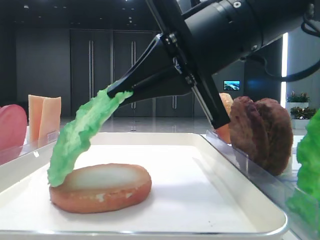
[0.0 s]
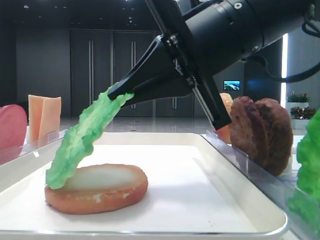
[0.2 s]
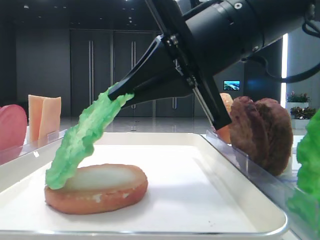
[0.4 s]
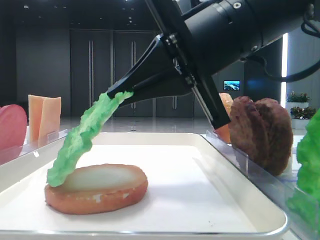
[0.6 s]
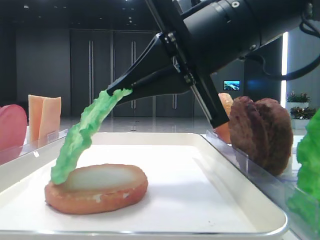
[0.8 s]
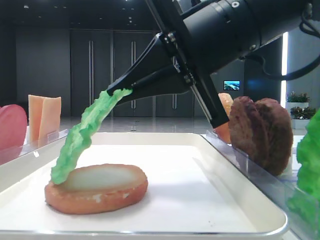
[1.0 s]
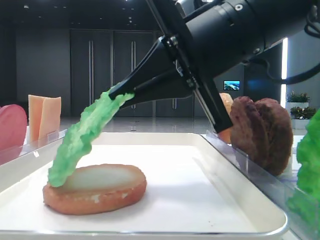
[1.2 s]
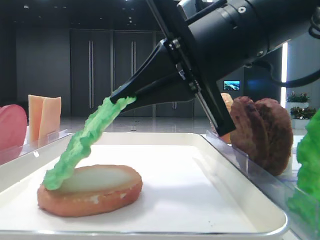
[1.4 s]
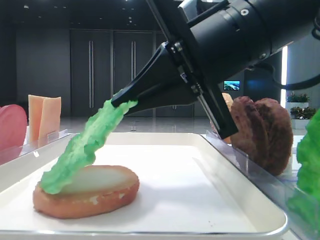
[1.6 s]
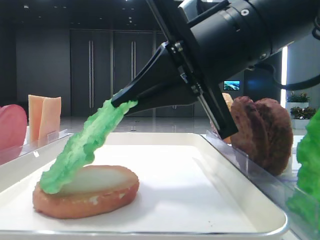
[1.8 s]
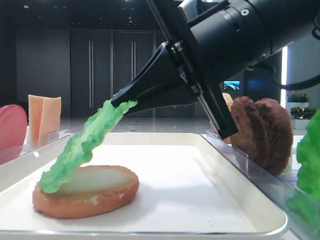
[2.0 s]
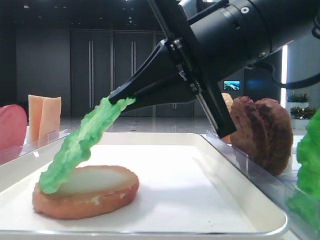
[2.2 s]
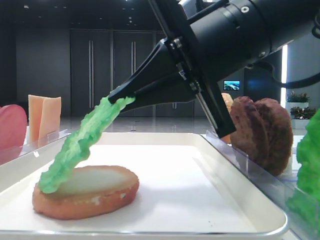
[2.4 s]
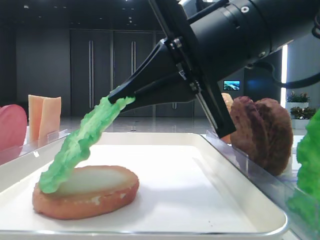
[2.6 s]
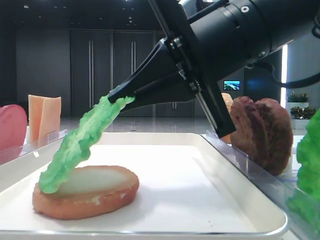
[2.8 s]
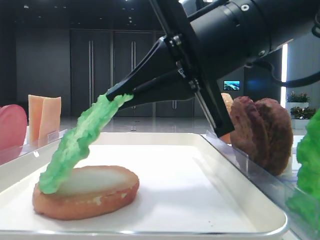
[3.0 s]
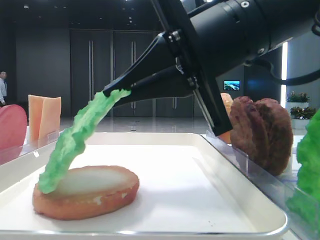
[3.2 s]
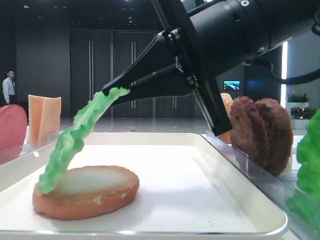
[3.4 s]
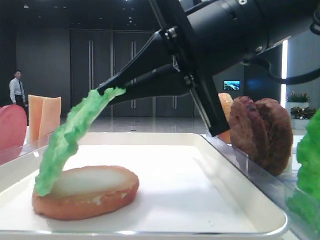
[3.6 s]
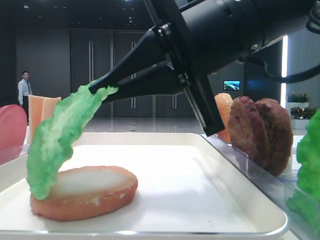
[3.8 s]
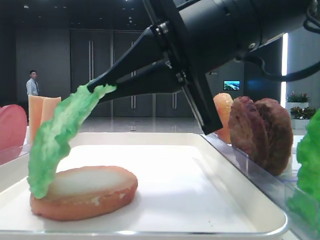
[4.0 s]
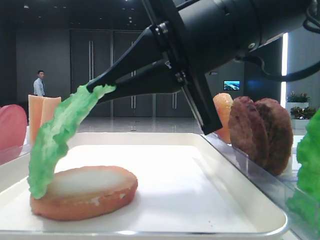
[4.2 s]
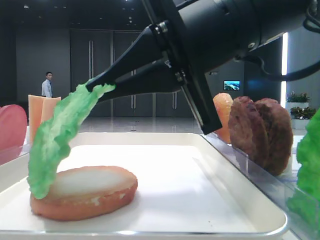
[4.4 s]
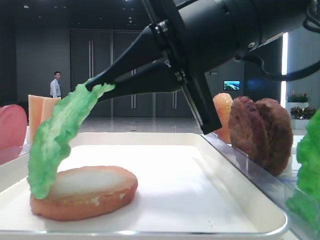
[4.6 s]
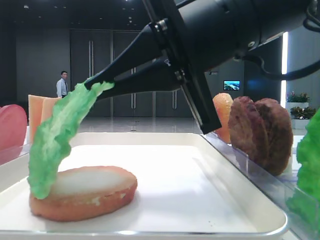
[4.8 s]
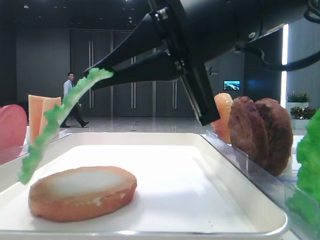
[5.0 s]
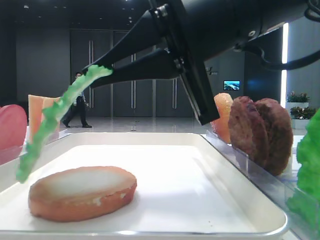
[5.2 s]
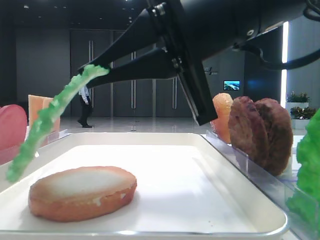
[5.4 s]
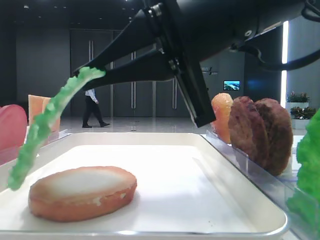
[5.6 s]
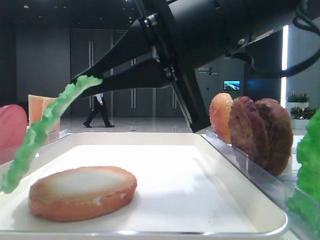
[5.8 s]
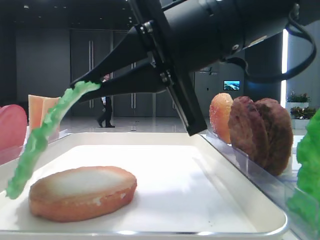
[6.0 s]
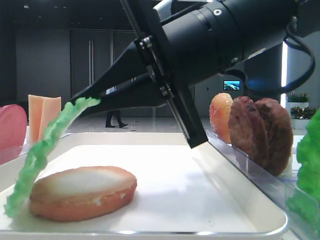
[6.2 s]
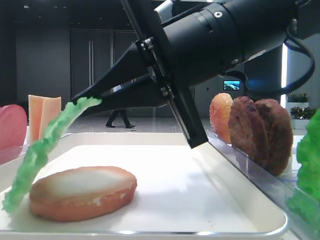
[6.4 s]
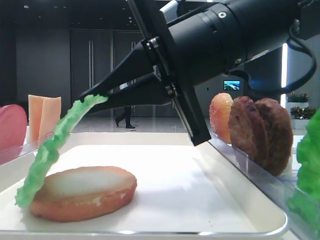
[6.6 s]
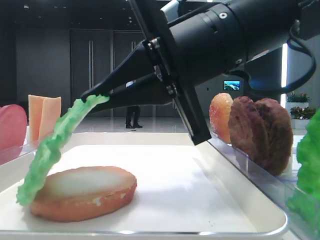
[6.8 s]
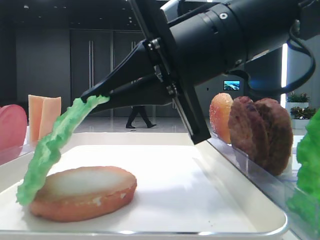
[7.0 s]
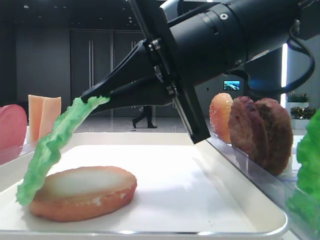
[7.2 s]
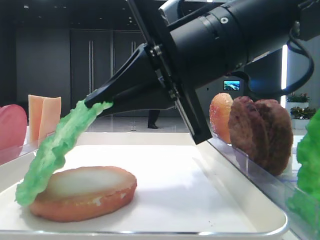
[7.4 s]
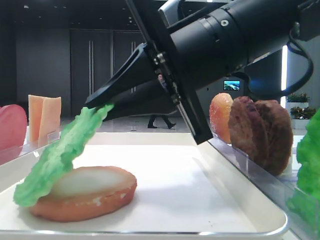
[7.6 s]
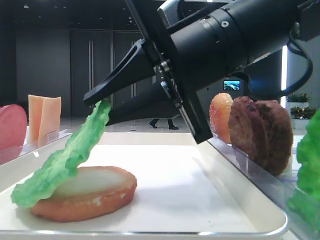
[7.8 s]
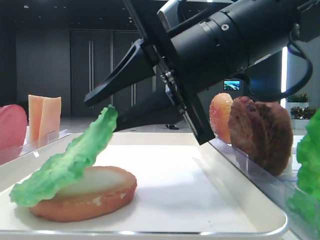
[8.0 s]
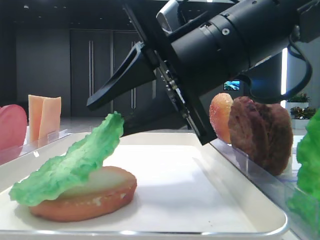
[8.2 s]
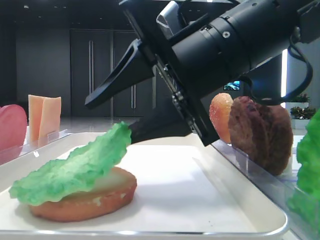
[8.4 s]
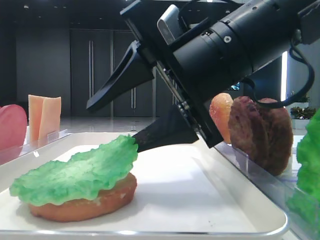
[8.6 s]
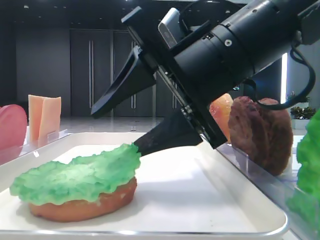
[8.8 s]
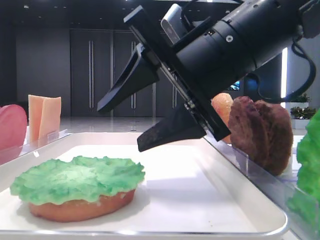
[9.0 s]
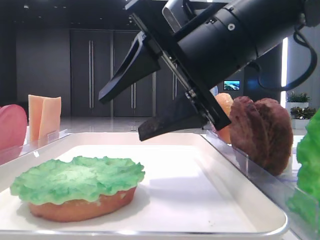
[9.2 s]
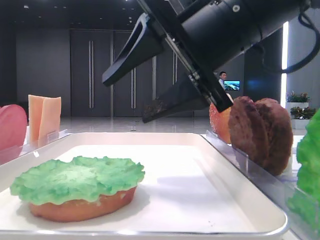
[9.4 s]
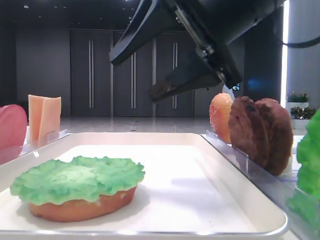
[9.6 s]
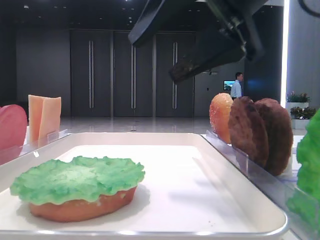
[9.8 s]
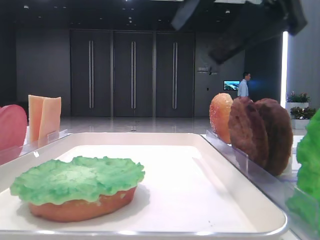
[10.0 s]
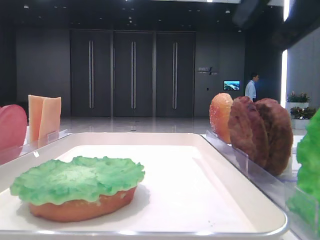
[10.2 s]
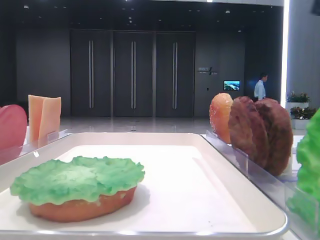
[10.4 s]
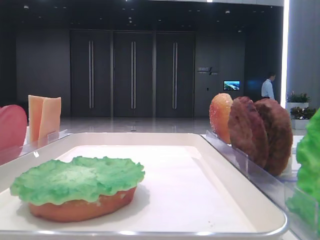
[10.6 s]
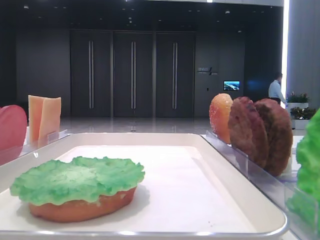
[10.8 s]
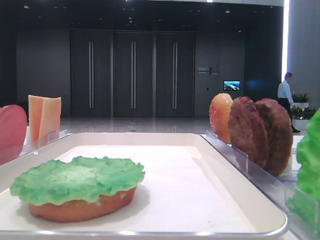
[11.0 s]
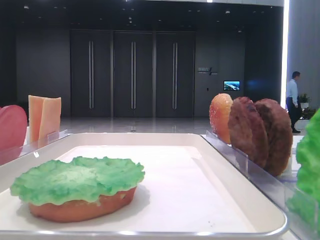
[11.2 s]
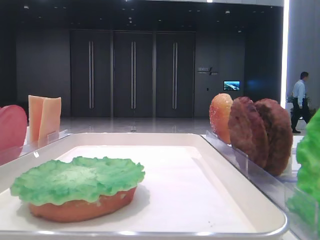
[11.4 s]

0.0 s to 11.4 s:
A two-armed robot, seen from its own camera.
Step, 0.0 to 8.8 s: Place the lettuce leaf on the bottom bread with the right hand.
0.0 to 2.8 s: Both grippers stay about where they are.
2.8 to 4.2 s: The grippers move only a little.
4.2 to 5.6 s: Both grippers stay put.
7.2 to 8.6 s: The right gripper opens up.
8.6 to 10.0 s: The right gripper goes some 10 cm upward and to the right.
10.0 to 11.4 s: The right gripper travels backward and to the right by roughly 25 cm.

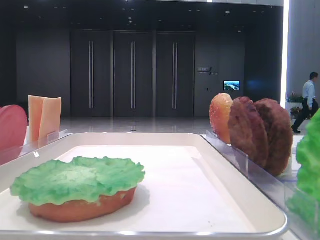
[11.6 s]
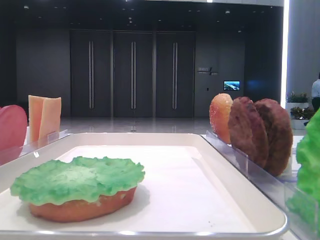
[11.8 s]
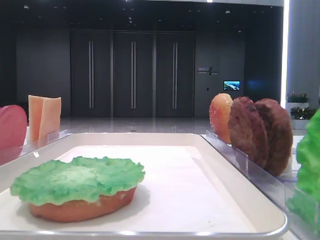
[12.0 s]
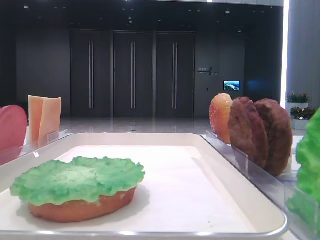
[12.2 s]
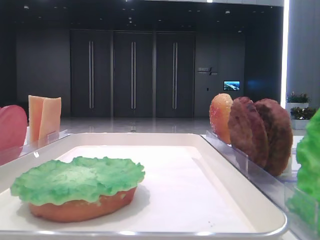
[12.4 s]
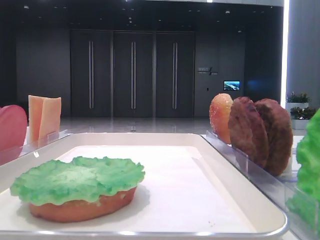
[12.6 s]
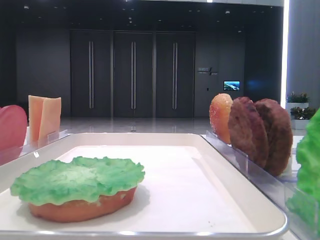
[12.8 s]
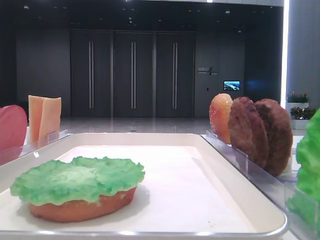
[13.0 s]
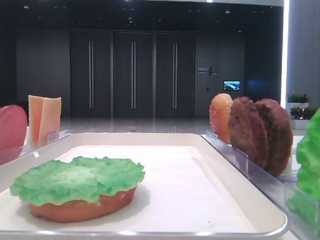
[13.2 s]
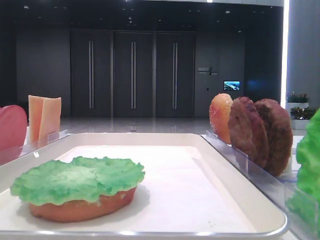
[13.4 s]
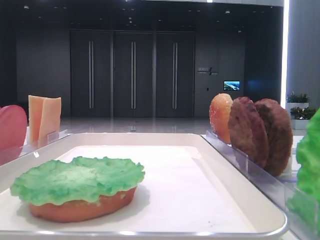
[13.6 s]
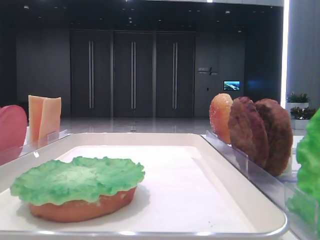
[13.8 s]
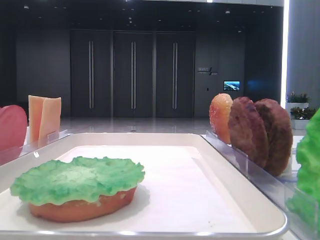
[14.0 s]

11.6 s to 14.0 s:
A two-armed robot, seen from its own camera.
12.8 to 14.0 s: Both grippers stay about where they are.

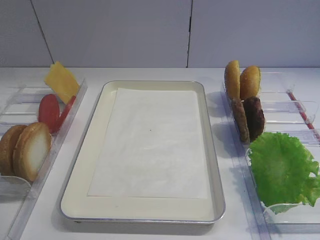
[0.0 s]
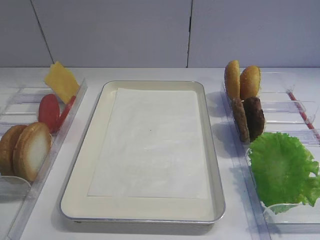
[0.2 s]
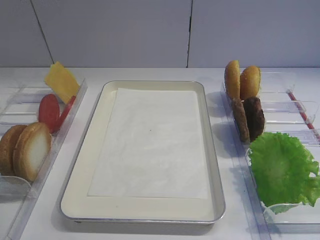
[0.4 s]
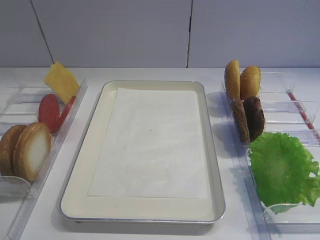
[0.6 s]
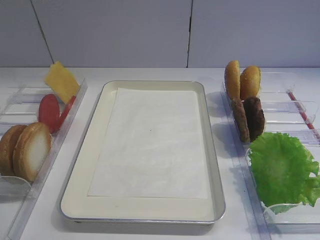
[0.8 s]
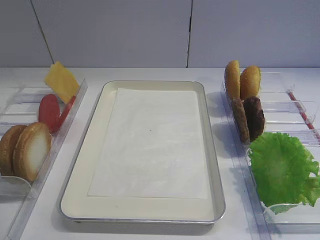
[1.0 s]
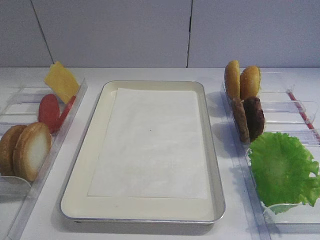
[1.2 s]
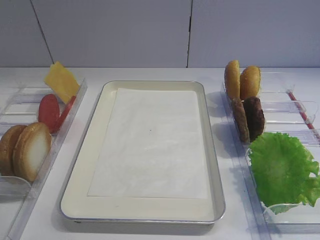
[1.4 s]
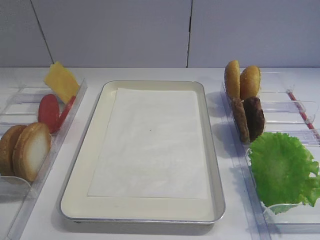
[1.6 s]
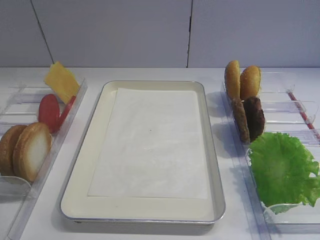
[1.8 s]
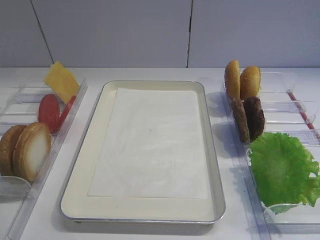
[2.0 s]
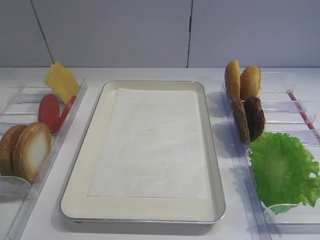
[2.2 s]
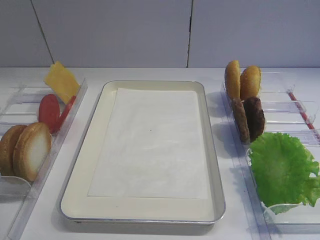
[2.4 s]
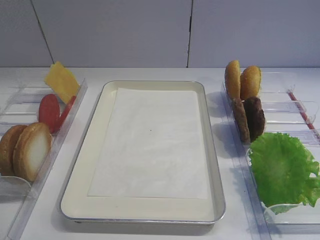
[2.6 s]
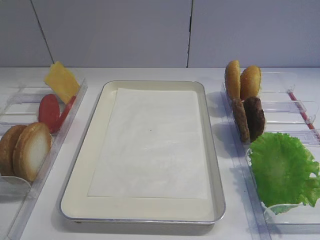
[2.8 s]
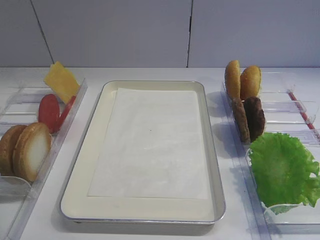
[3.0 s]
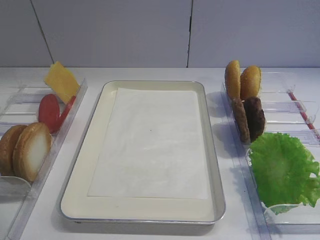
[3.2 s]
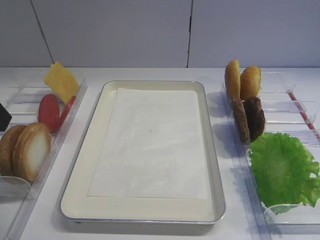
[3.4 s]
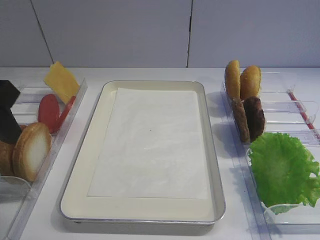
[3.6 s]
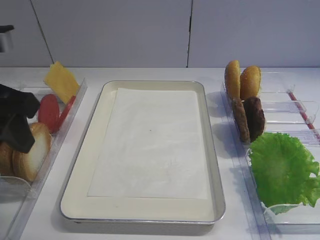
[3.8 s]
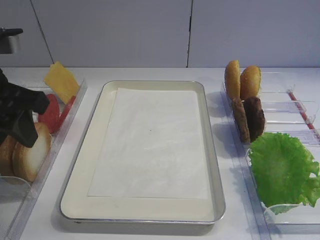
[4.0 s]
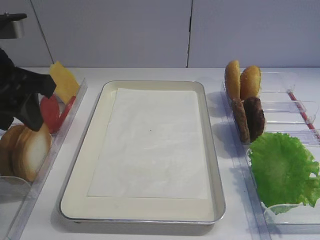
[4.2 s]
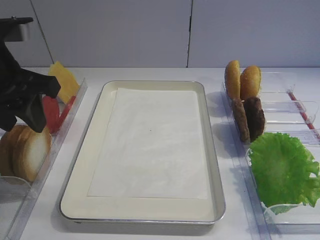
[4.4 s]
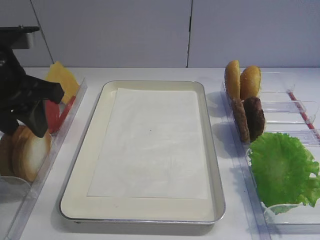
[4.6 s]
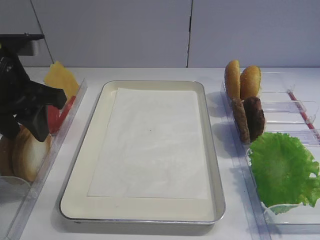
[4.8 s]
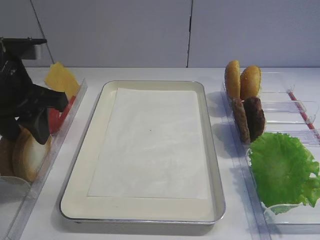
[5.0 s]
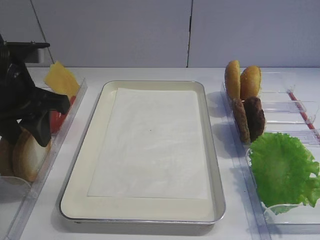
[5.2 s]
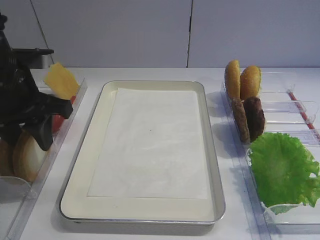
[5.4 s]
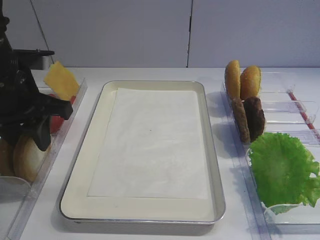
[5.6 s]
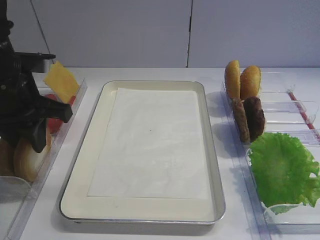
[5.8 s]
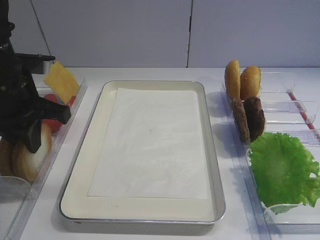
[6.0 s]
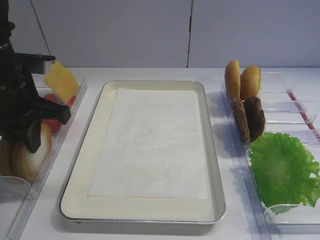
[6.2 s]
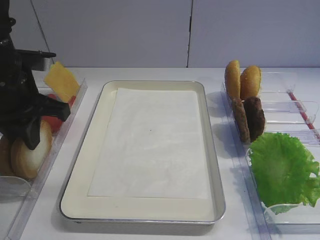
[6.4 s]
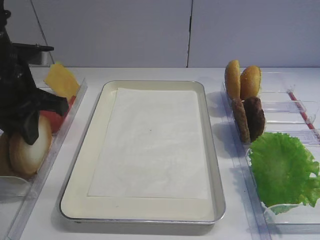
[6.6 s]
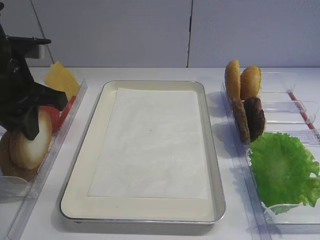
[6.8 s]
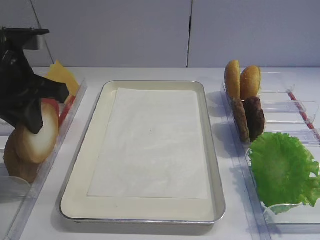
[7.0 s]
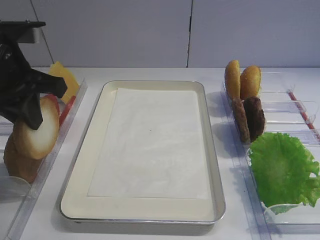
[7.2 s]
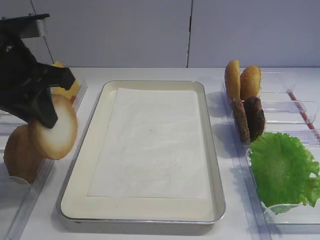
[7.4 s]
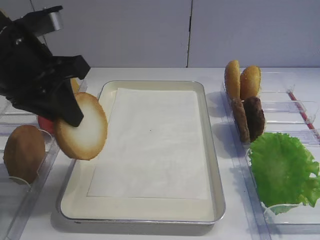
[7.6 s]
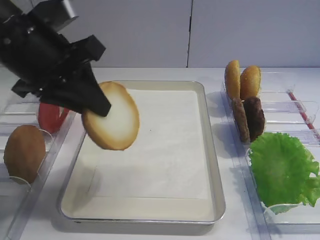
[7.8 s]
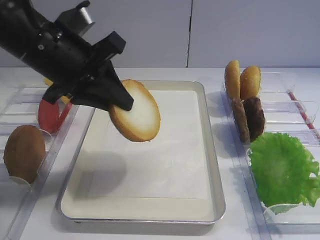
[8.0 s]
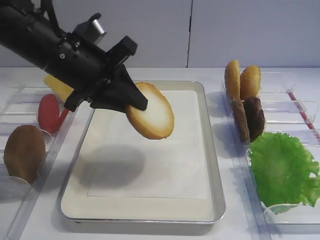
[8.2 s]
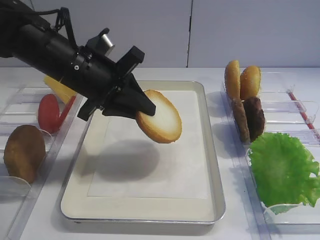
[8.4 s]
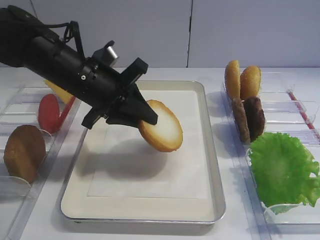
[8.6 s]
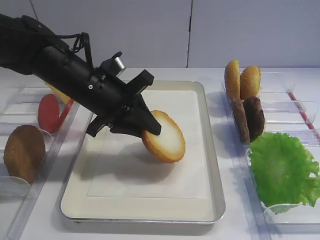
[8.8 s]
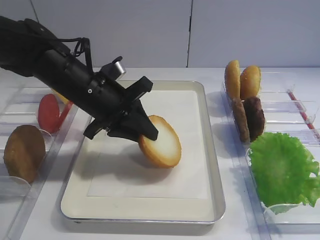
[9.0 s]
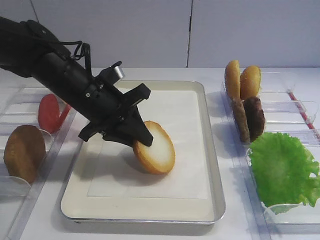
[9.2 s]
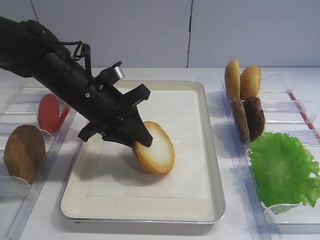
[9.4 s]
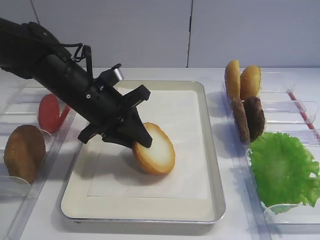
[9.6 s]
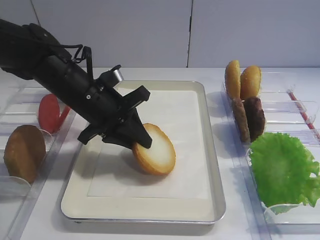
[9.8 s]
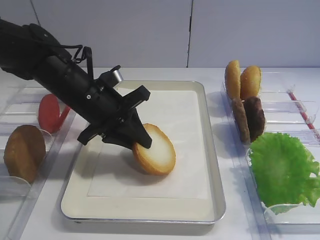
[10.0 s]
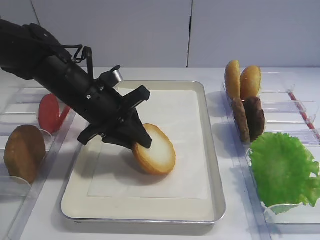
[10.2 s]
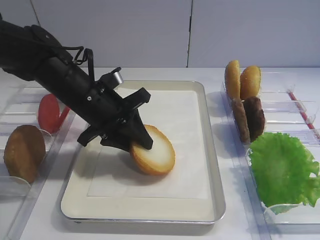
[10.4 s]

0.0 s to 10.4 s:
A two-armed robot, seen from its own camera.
Step, 0.0 to 7.2 s: Pick up the bread slice with the left gripper.
3.0 to 4.4 s: The left gripper moves forward and to the right, roughly 10 cm.
4.4 to 6.0 s: The left gripper shifts some 5 cm downward, and closes its fingers.
6.0 to 7.4 s: The left gripper is displaced upward by about 5 cm.
7.4 to 9.0 s: The left gripper goes approximately 15 cm downward, to the right and forward.
9.0 to 10.4 s: The left gripper opens up.
